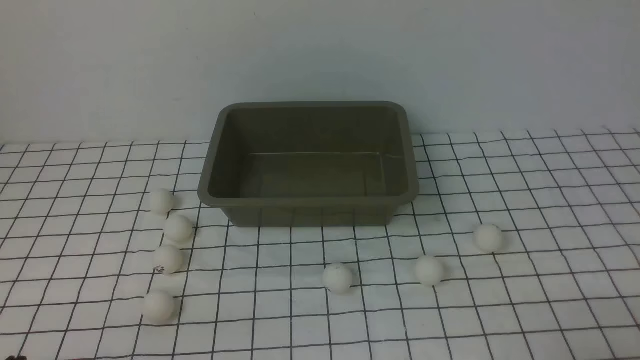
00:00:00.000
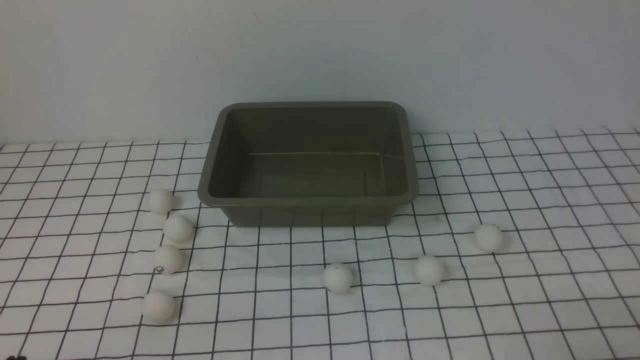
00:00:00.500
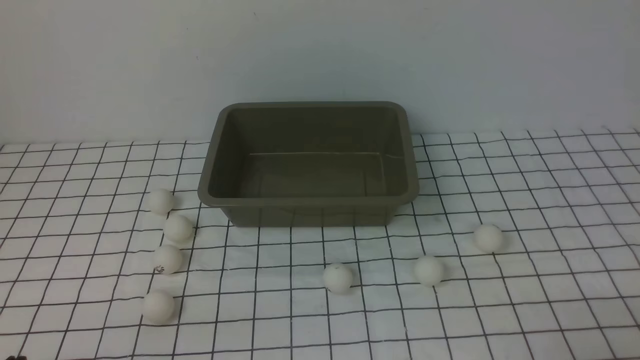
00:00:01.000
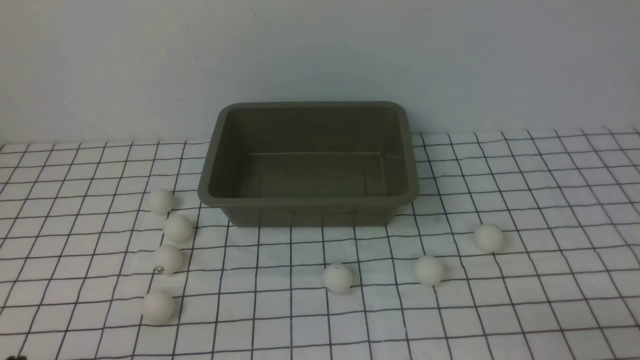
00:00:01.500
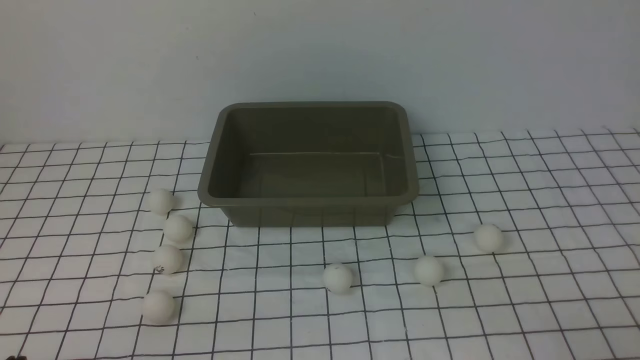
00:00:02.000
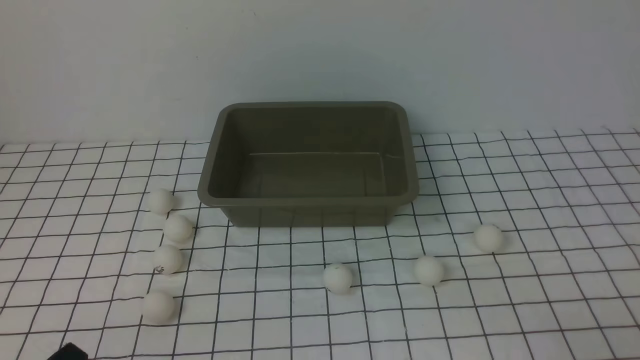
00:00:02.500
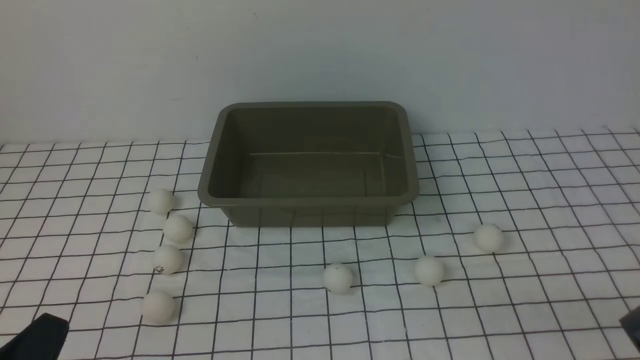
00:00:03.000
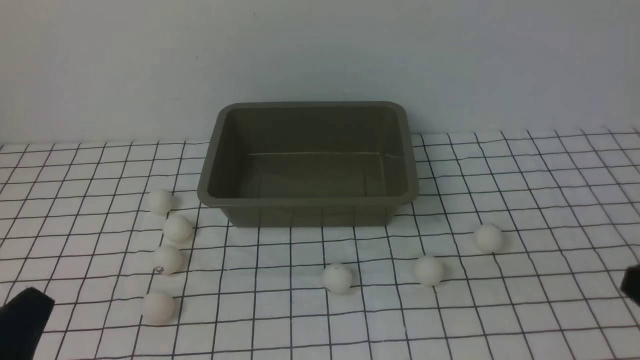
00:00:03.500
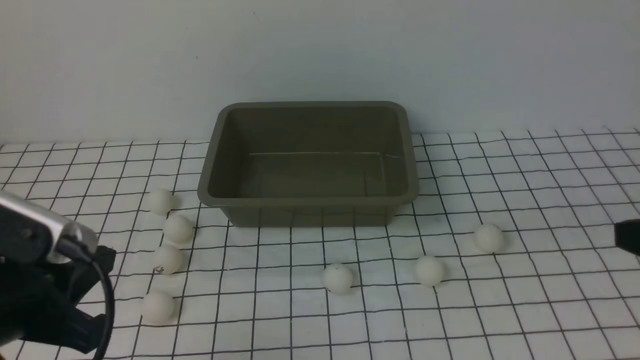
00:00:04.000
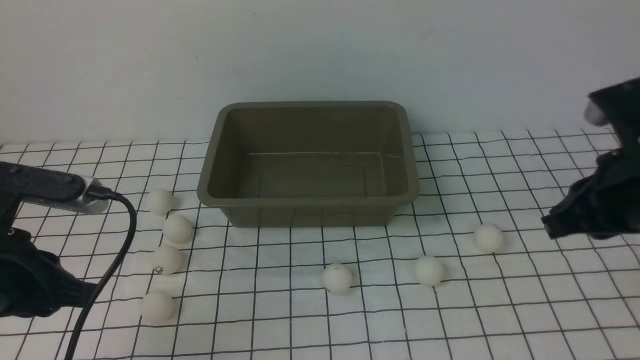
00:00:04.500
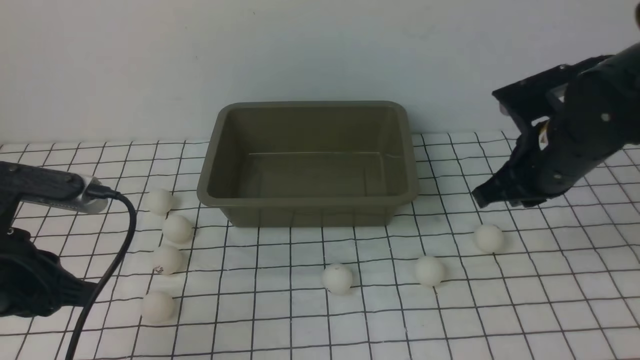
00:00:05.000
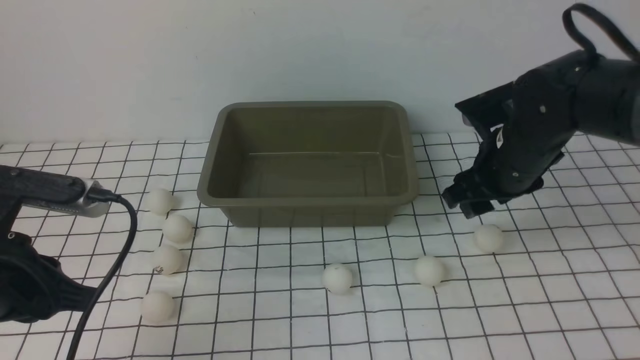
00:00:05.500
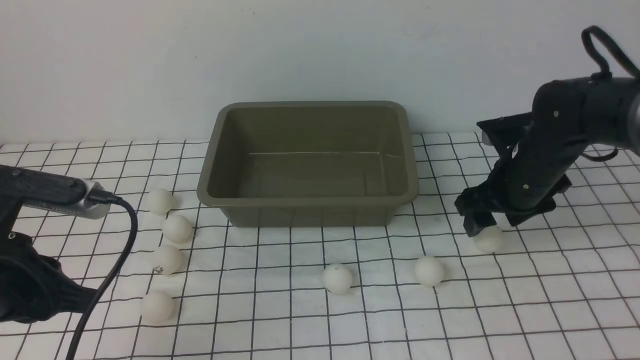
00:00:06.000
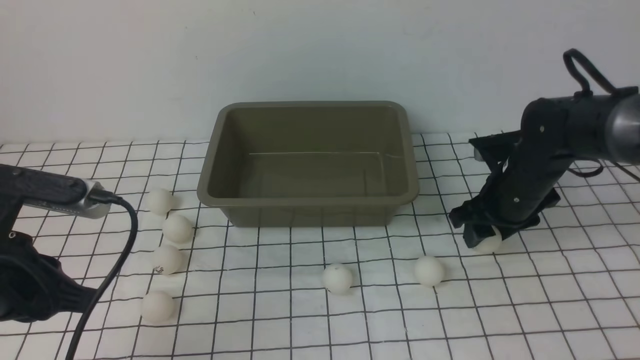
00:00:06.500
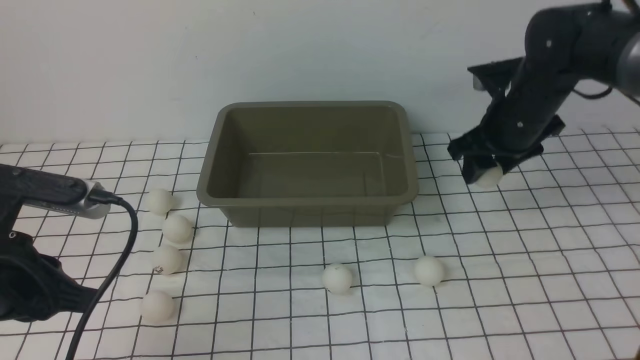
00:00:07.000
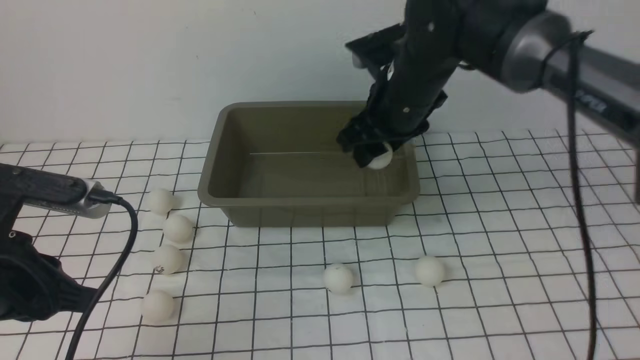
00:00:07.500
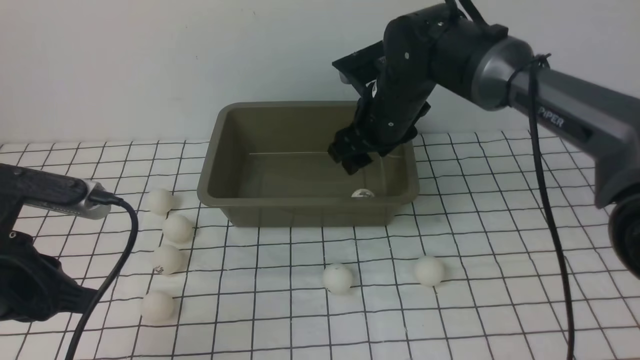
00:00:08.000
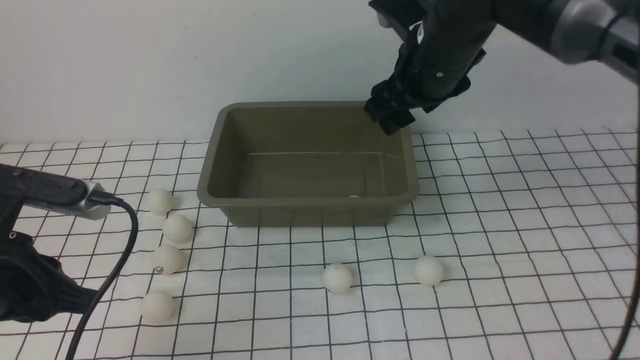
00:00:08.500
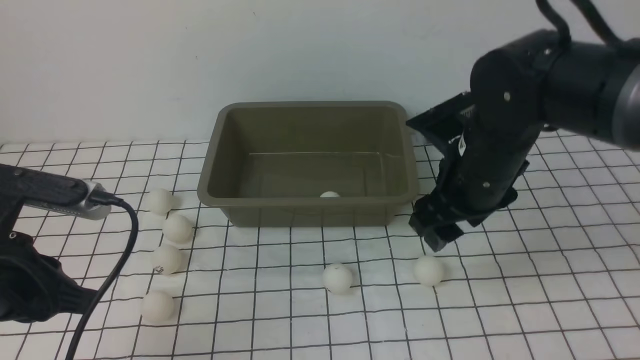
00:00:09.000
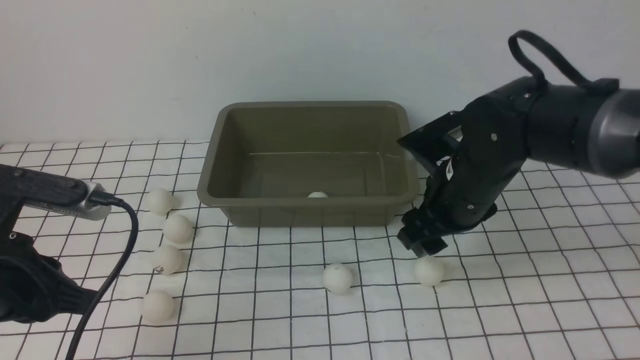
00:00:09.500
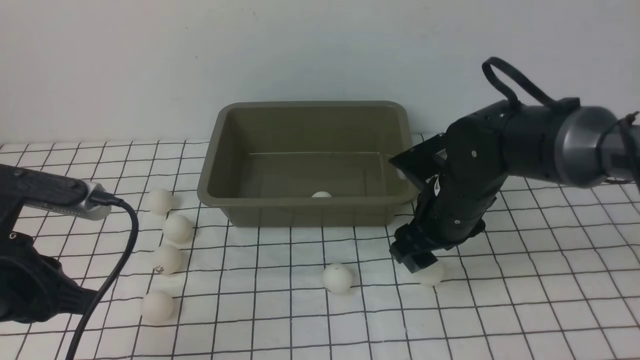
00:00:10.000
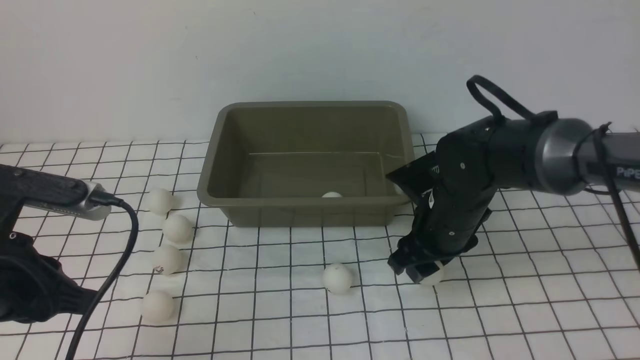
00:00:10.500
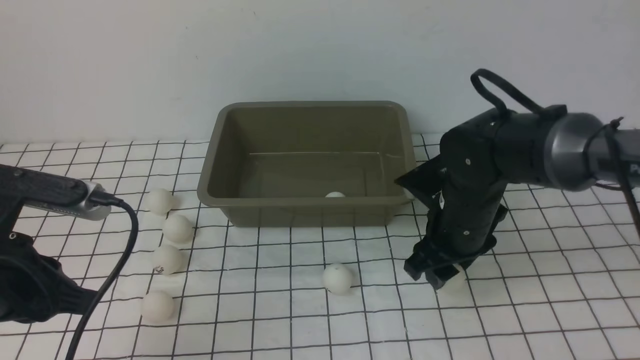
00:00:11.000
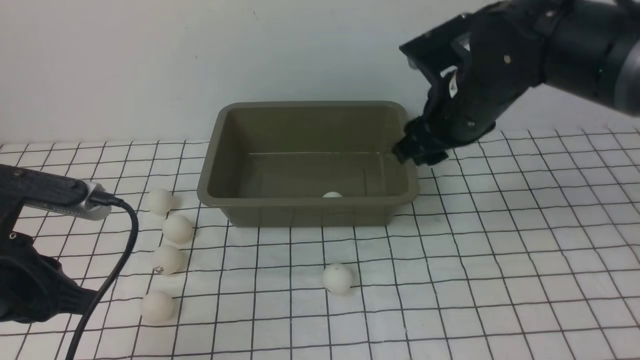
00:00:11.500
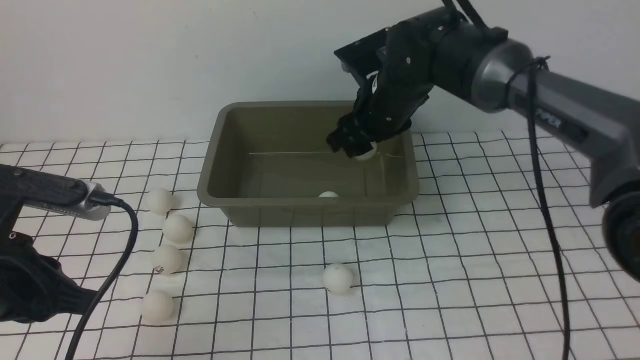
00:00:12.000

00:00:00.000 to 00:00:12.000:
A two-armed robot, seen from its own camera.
Step, 00:00:00.000 to 00:00:06.500: use the right arm to clamp the table tennis ball closest to it.
Step, 00:00:07.000 to 00:00:08.000: use the right arm to put the table tennis ball into the box.
Step, 00:00:08.500 to 00:00:11.000: use the right arm to clamp the table tennis ball closest to it.
00:00:02.000 to 00:00:04.000: The left gripper is displaced upward and forward by some 15 cm.
00:00:04.000 to 00:00:06.000: The right gripper travels forward and downward by about 25 cm, and opens its fingers. Meanwhile the left gripper goes roughly 5 cm forward.
00:00:06.000 to 00:00:08.000: The right gripper heads to the left and upward, covering about 15 cm.
00:00:08.000 to 00:00:10.000: The right gripper travels backward, downward and to the right by roughly 15 cm.
00:00:10.000 to 00:00:12.000: The right gripper moves forward, upward and to the left, roughly 15 cm.

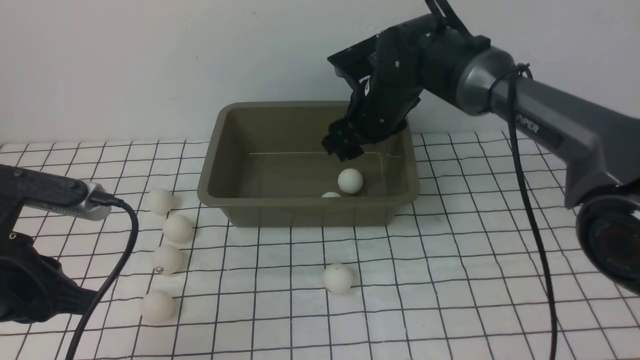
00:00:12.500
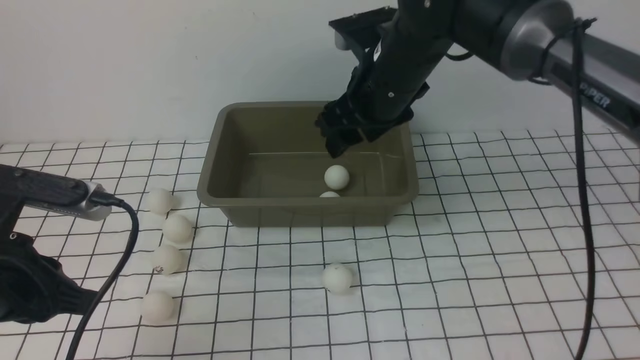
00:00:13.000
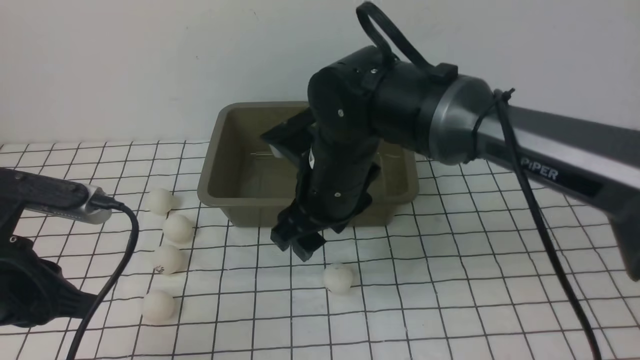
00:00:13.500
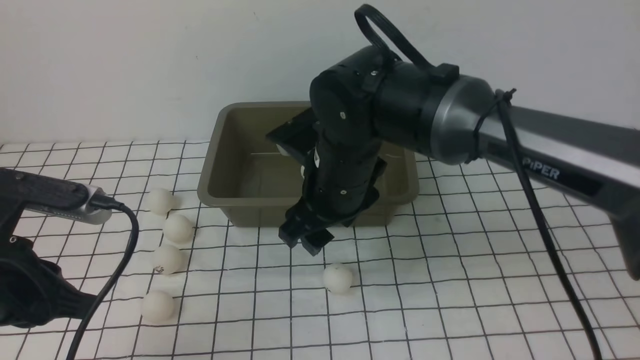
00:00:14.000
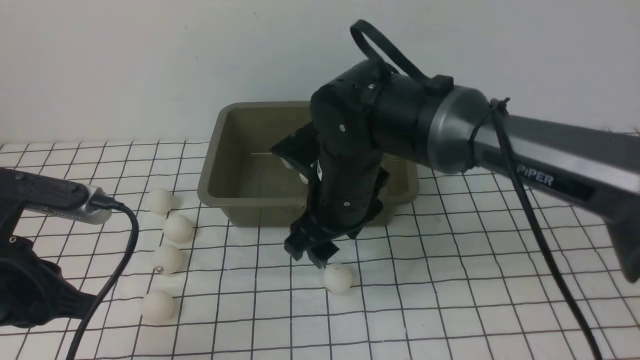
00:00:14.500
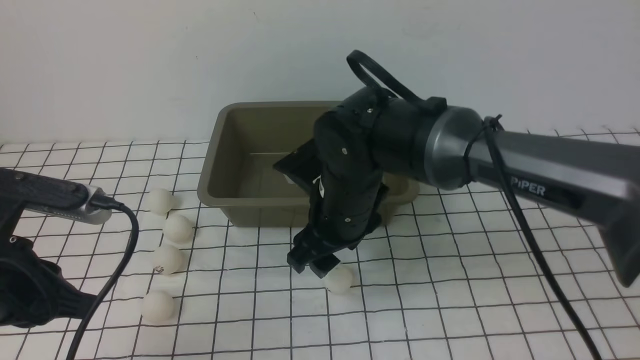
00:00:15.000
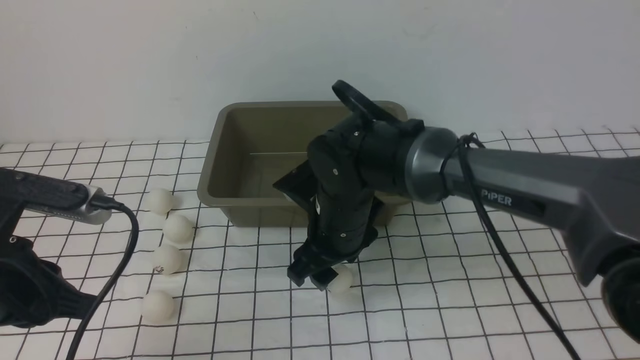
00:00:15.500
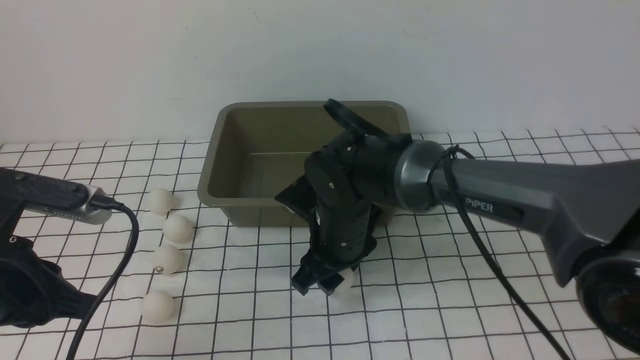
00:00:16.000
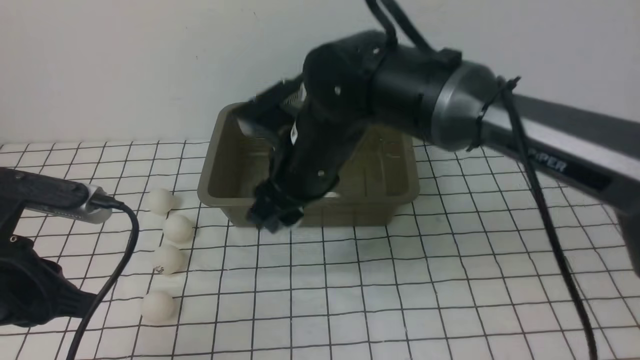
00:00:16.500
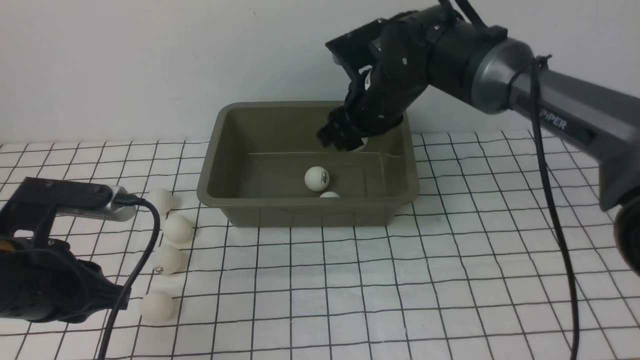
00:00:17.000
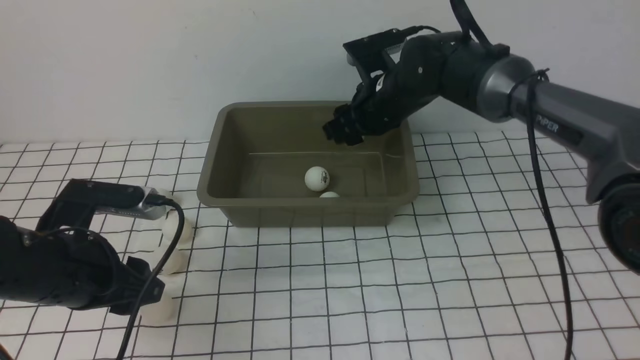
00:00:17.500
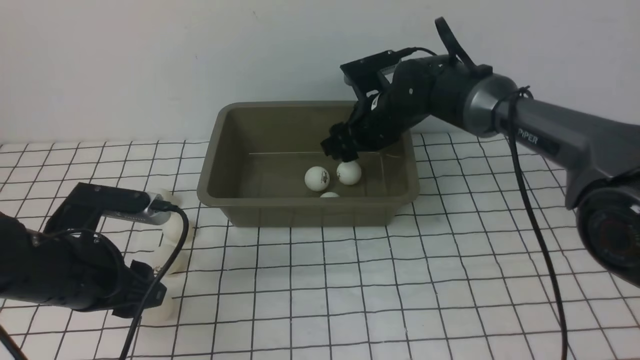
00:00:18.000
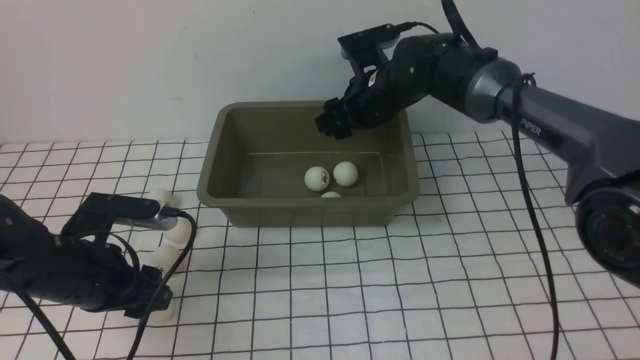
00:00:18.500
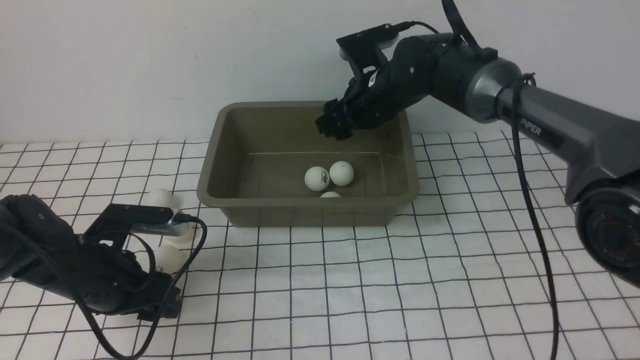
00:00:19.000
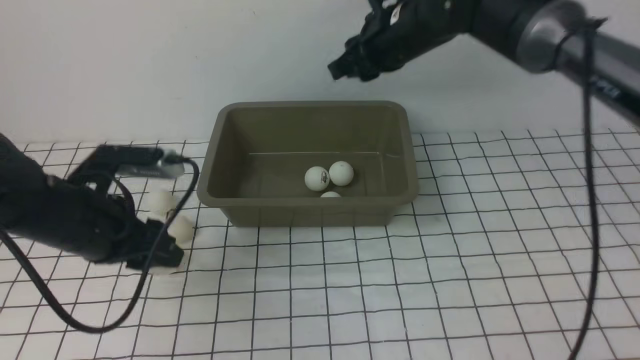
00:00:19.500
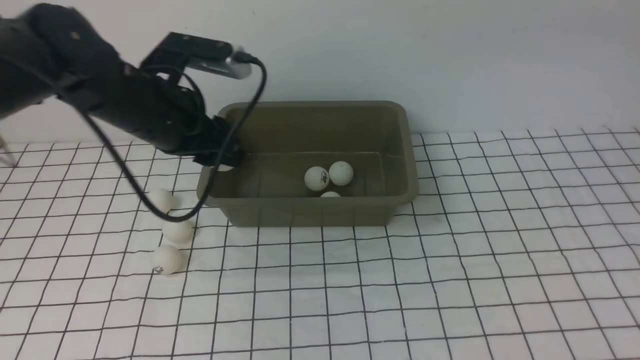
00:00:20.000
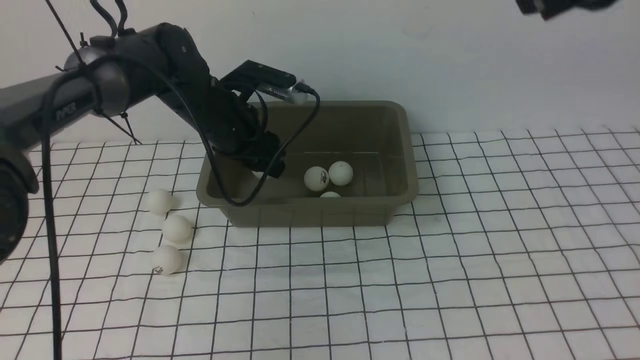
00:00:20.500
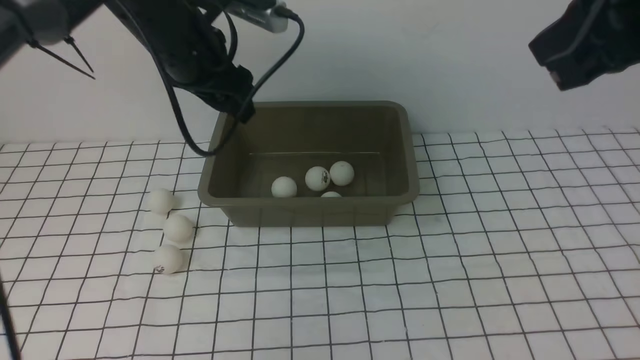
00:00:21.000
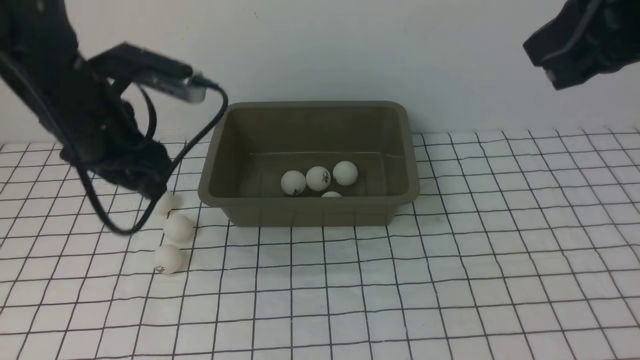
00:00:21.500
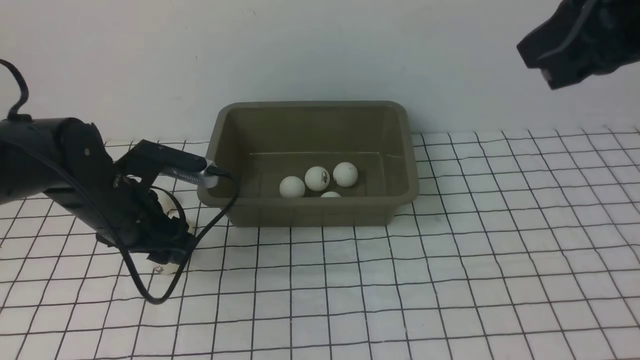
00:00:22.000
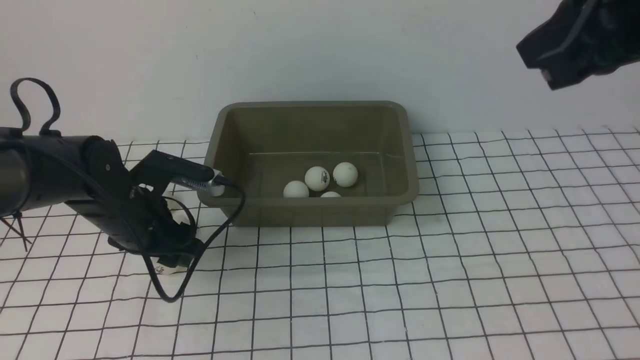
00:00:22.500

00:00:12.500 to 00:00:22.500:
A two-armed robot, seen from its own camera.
Step, 00:00:13.000 to 00:00:16.000: use the right arm to clamp the table tennis ball closest to it.
Step, 00:00:16.500 to 00:00:18.000: use the right arm to put the table tennis ball into the box.
Step, 00:00:18.500 to 00:00:19.500: use the left arm to clamp the table tennis ball closest to it.
Step, 00:00:20.000 to 00:00:20.500: use the left arm to put the table tennis ball into the box.
00:00:12.500 to 00:00:14.500: The right gripper heads backward and to the left, covering approximately 15 cm.
00:00:14.500 to 00:00:16.500: The right gripper goes some 5 cm upward.
00:00:16.500 to 00:00:18.500: The right gripper heads forward, downward and to the right, covering roughly 15 cm. The left gripper travels downward and forward by about 10 cm, and opens.
00:00:18.500 to 00:00:20.500: The left gripper shifts approximately 25 cm forward, to the right and upward. The right gripper travels upward, backward and to the right by approximately 35 cm, and closes its fingers.
00:00:20.500 to 00:00:22.500: The left gripper heads backward, downward and to the left, covering some 15 cm.
